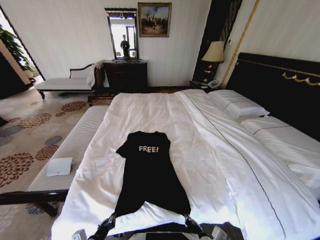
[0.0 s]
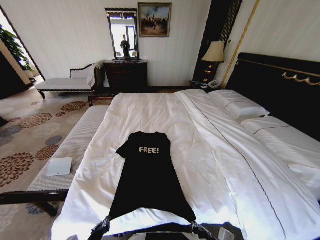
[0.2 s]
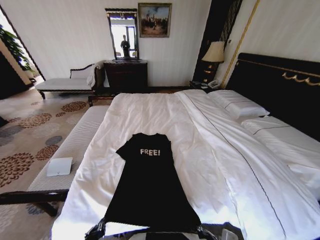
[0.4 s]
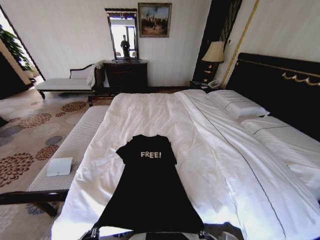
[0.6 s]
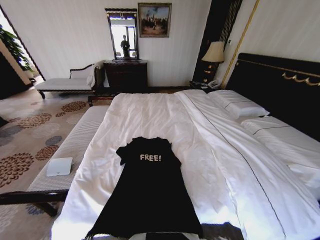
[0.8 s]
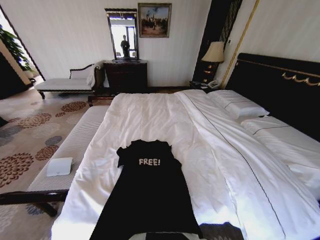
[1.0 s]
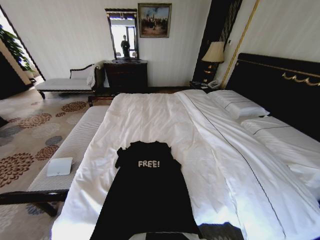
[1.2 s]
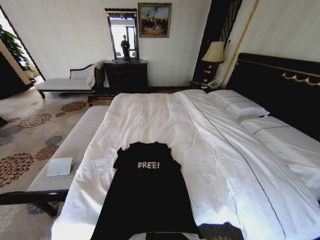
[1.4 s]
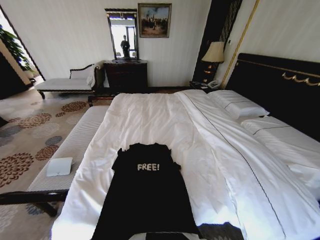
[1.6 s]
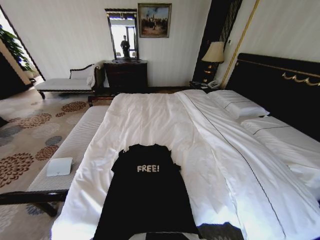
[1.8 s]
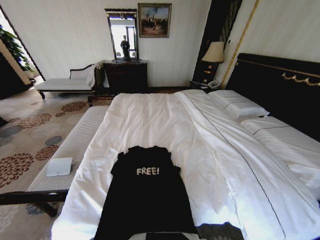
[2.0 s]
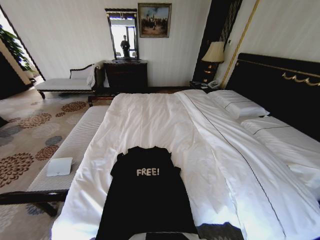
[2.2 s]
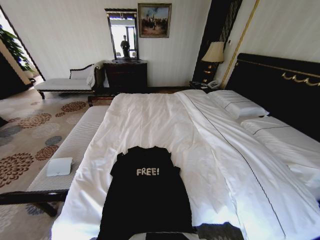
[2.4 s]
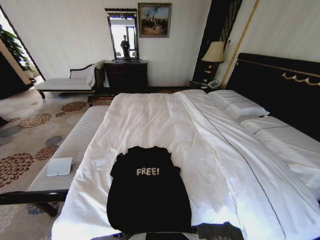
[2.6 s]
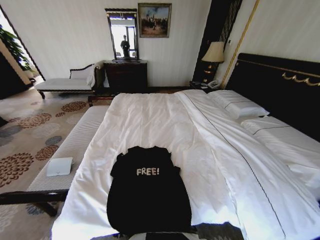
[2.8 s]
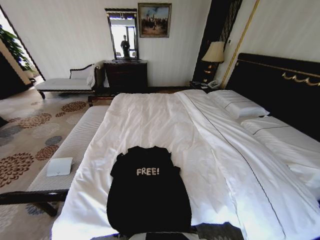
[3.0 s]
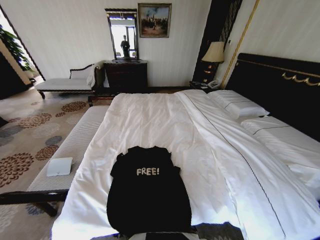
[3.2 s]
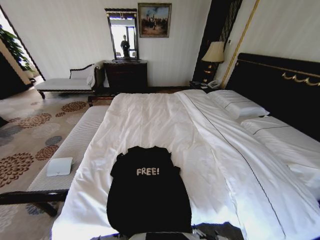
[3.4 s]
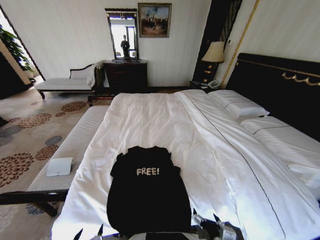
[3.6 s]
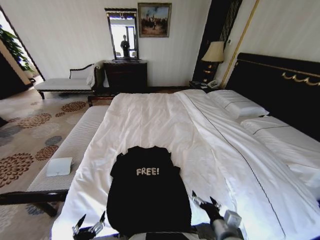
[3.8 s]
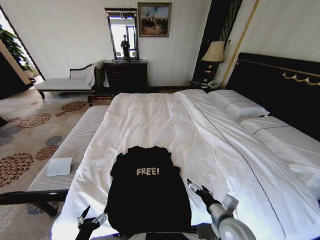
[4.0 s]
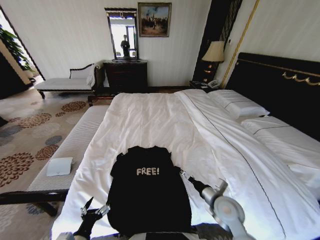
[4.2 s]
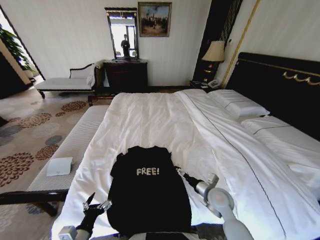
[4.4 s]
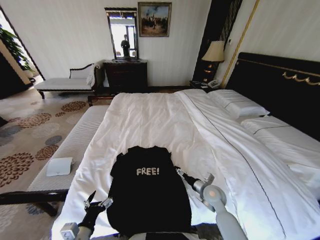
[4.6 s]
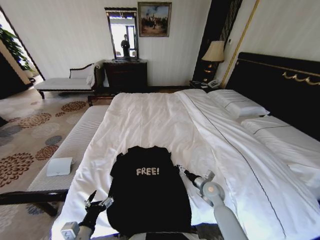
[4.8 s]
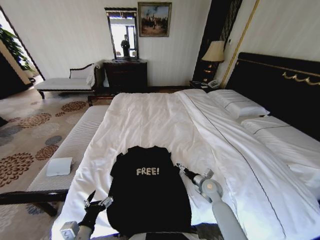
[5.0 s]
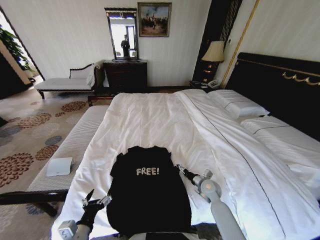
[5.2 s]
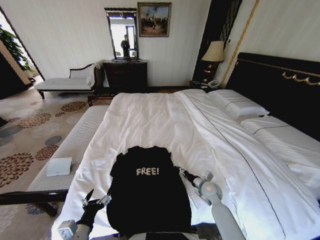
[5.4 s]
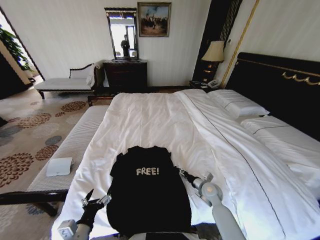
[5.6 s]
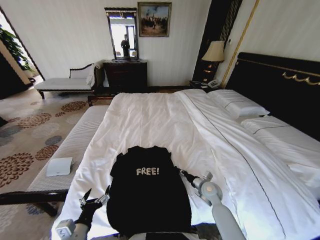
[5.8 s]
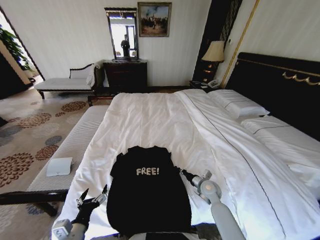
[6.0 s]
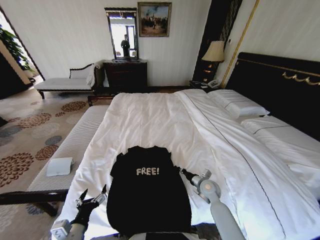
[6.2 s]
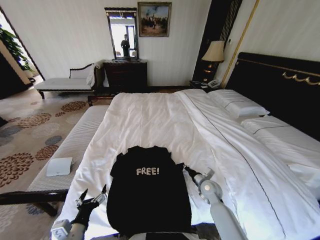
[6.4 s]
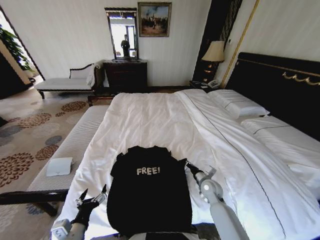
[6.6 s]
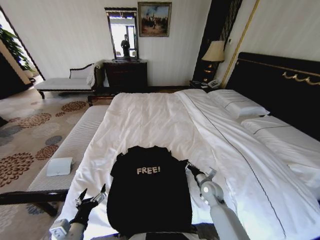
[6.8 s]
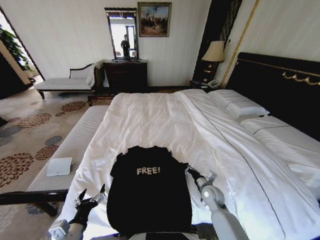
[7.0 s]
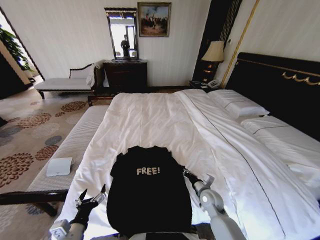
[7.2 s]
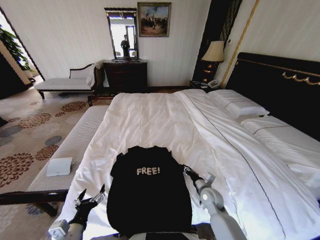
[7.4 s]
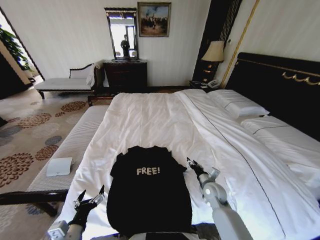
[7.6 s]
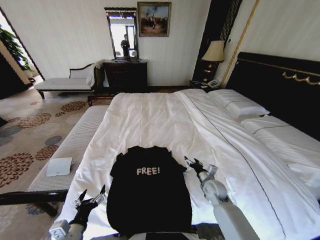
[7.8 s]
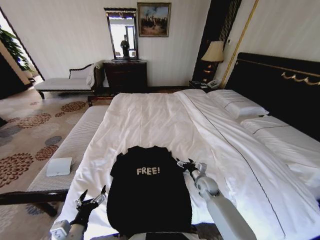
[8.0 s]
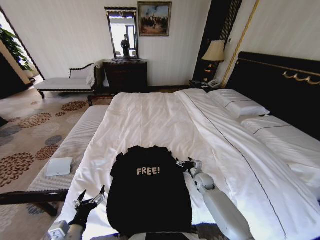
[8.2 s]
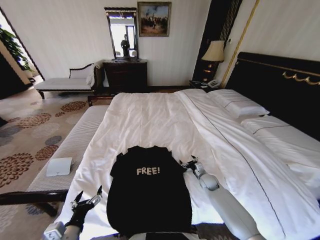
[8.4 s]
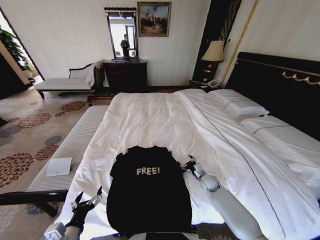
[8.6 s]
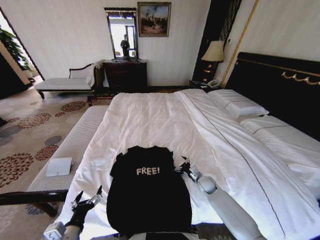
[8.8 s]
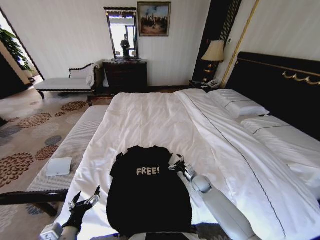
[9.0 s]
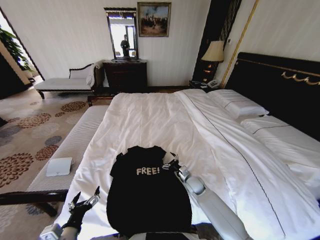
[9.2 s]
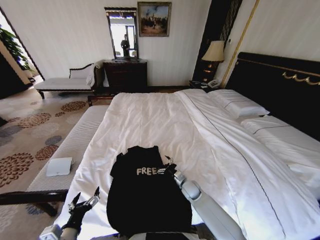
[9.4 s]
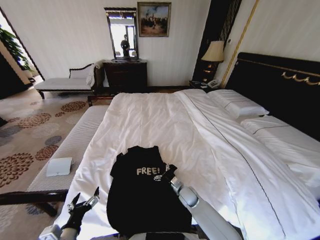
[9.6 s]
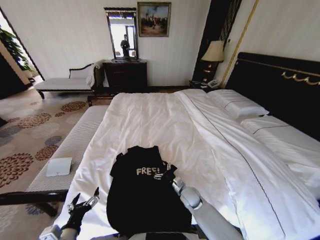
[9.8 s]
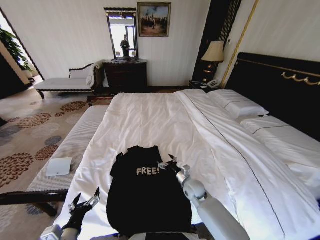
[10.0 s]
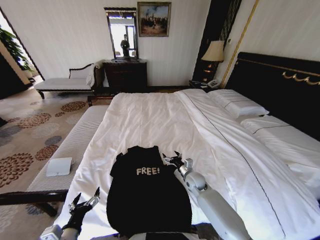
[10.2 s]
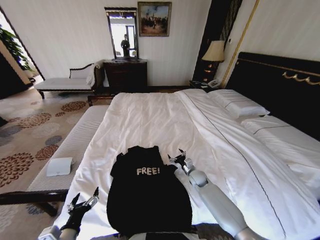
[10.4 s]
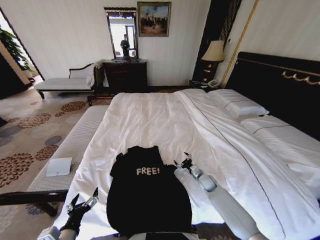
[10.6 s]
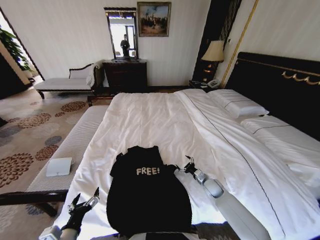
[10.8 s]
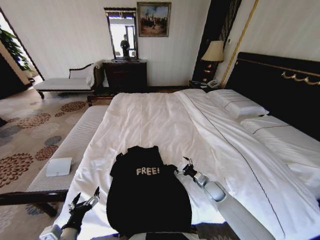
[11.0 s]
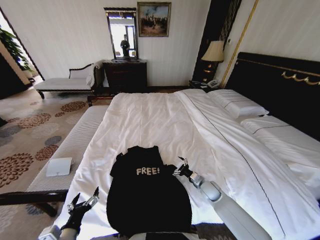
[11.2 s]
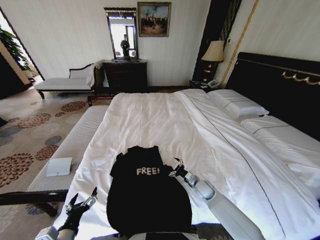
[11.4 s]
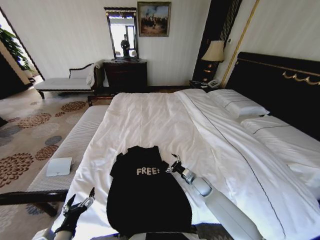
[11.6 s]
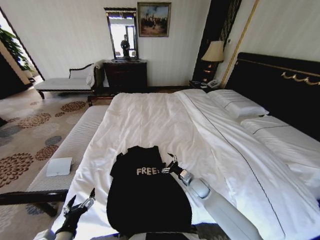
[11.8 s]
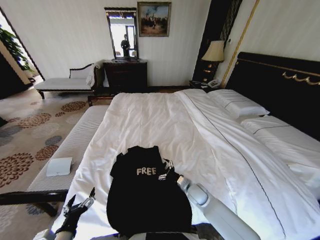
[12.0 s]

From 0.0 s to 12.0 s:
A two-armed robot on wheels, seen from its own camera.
Task of the whole recording: Fold the clothes on the bed.
From 0.0 s to 1.6 s: The left gripper heads backward, covering some 15 cm, while the right gripper changes place by some 5 cm.
From 1.6 s to 3.0 s: The right gripper opens up. Meanwhile the left gripper opens.
From 3.0 s to 4.4 s: The right gripper goes approximately 25 cm forward, and opens its fingers. The left gripper heads forward, covering roughly 15 cm, and opens.
From 4.4 s to 6.0 s: The right gripper moves downward and forward, approximately 10 cm, and closes.
From 6.0 s to 7.6 s: The right gripper opens.
From 7.6 s to 9.0 s: The right gripper is displaced downward and forward by some 10 cm, and opens up.
From 9.0 s to 10.4 s: The right gripper reaches about 5 cm backward, then returns.
From 10.4 s to 12.0 s: The right gripper goes about 10 cm backward, and moves about 5 cm to the right and comes back.

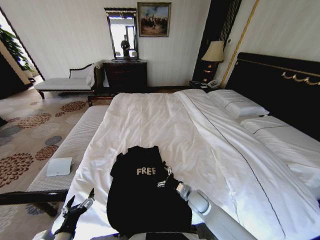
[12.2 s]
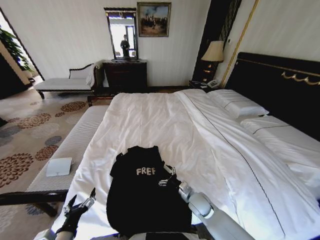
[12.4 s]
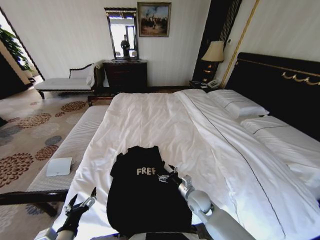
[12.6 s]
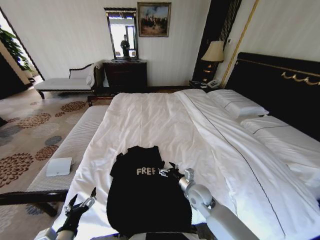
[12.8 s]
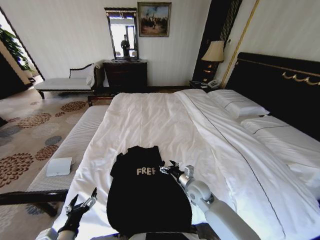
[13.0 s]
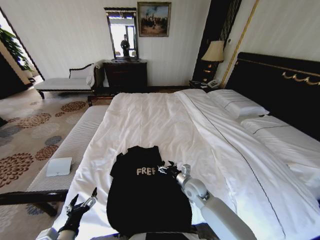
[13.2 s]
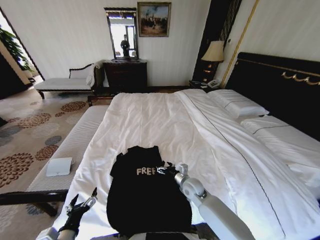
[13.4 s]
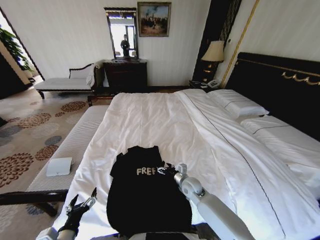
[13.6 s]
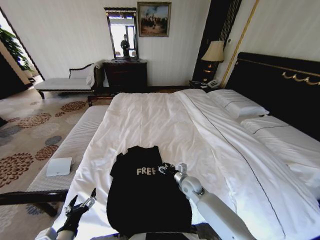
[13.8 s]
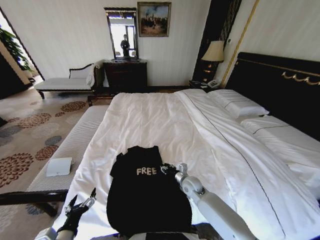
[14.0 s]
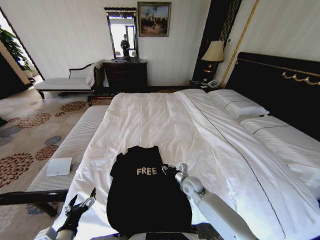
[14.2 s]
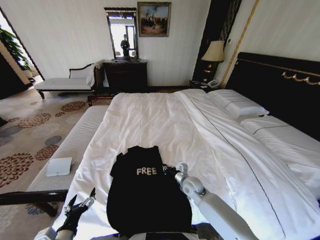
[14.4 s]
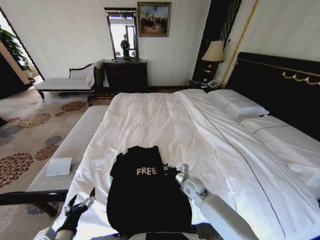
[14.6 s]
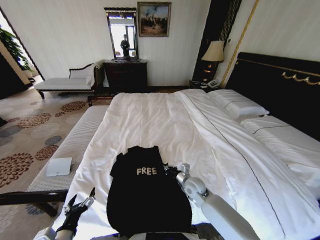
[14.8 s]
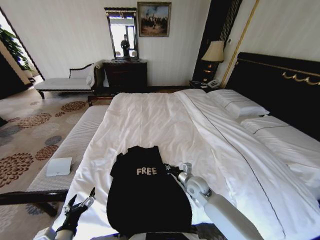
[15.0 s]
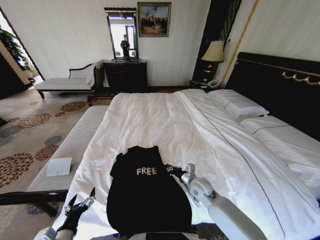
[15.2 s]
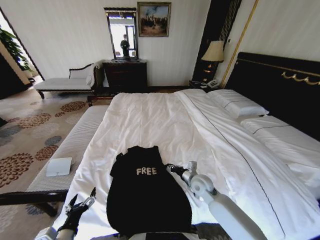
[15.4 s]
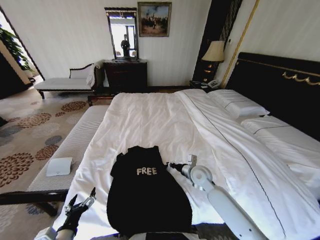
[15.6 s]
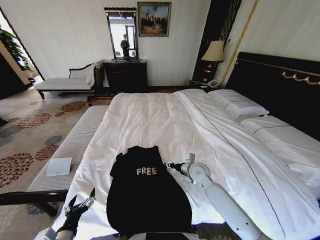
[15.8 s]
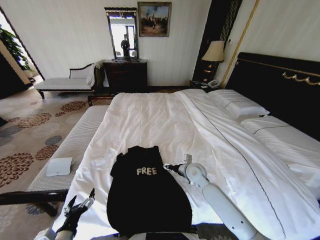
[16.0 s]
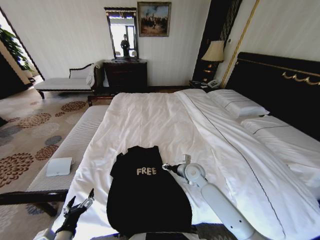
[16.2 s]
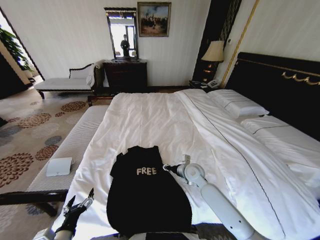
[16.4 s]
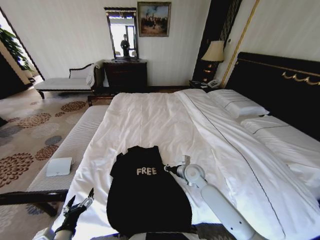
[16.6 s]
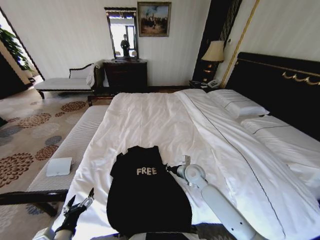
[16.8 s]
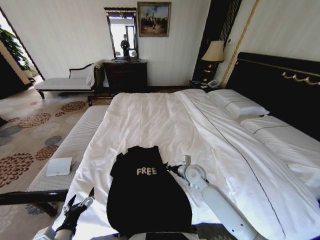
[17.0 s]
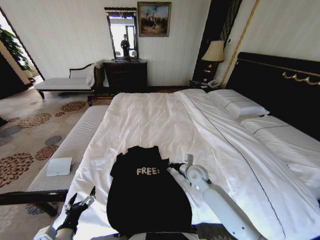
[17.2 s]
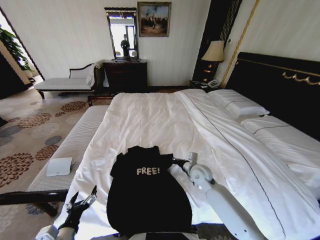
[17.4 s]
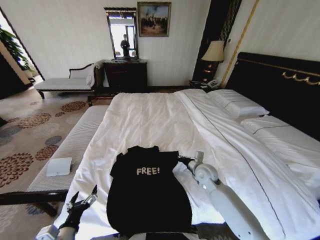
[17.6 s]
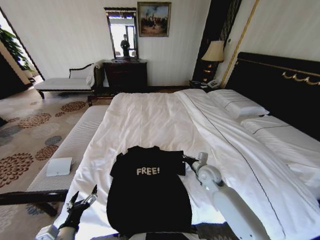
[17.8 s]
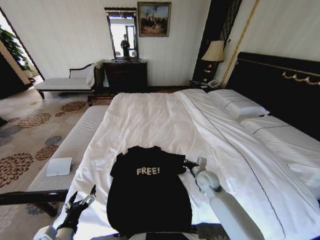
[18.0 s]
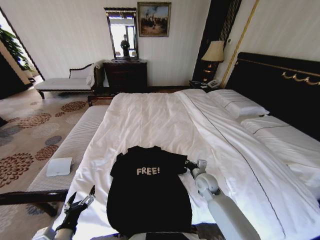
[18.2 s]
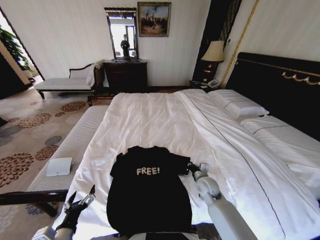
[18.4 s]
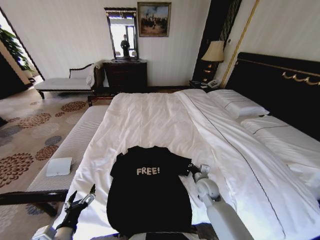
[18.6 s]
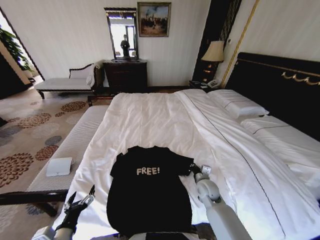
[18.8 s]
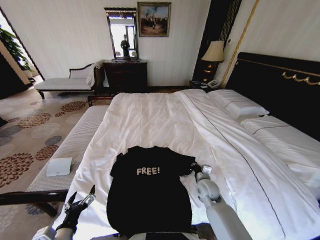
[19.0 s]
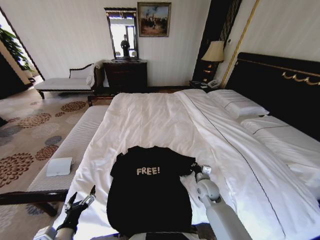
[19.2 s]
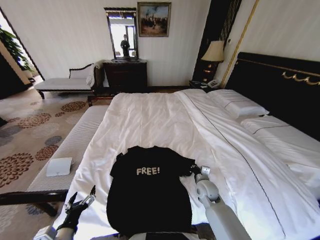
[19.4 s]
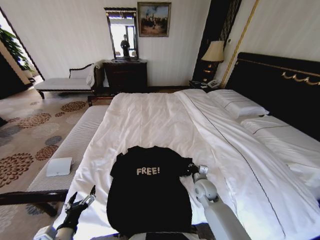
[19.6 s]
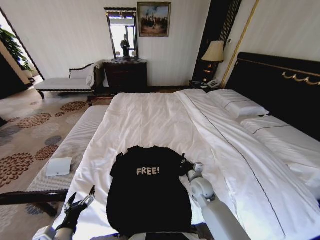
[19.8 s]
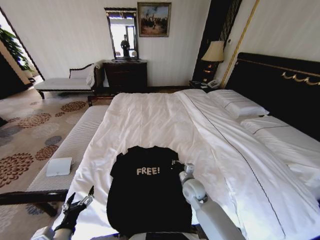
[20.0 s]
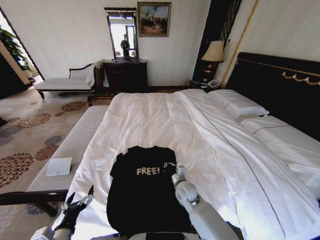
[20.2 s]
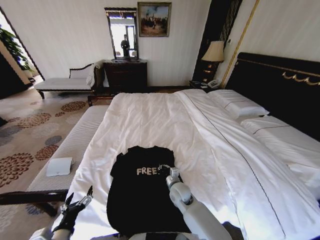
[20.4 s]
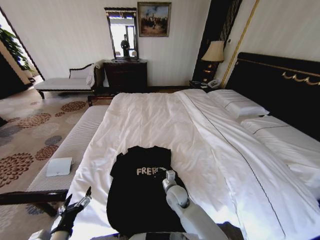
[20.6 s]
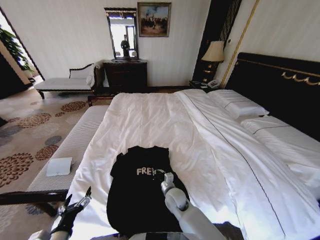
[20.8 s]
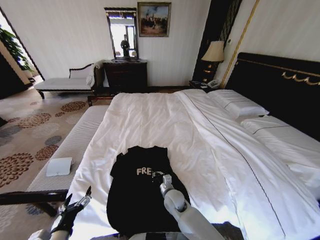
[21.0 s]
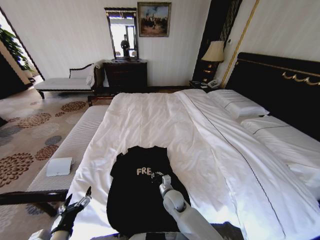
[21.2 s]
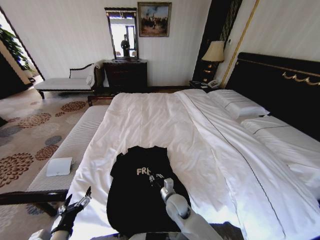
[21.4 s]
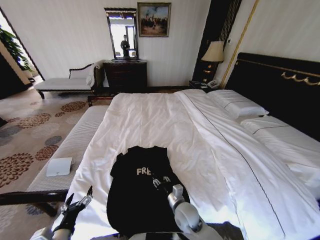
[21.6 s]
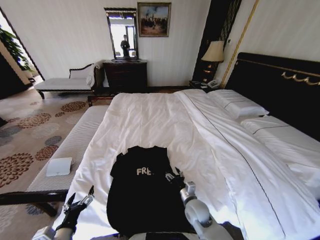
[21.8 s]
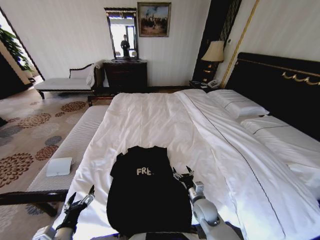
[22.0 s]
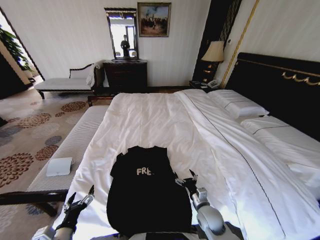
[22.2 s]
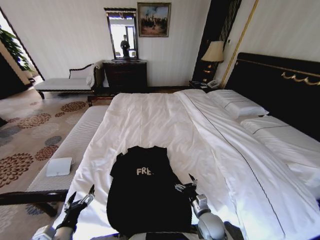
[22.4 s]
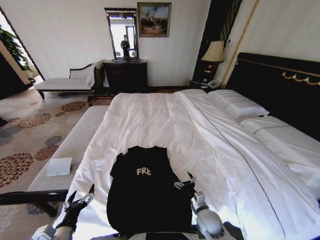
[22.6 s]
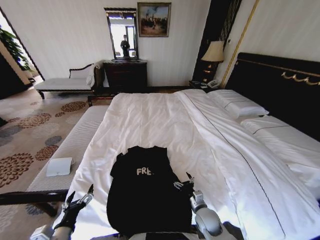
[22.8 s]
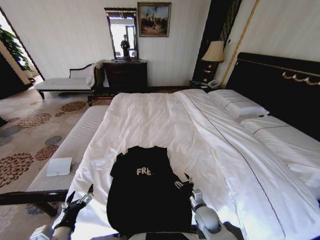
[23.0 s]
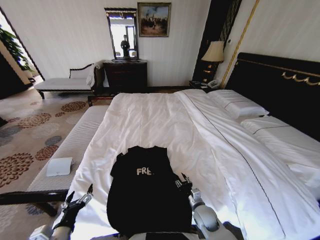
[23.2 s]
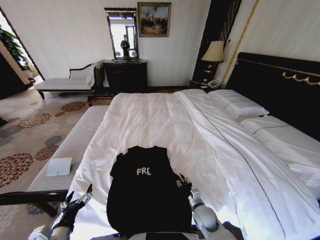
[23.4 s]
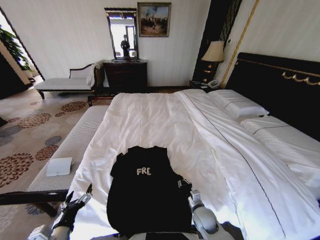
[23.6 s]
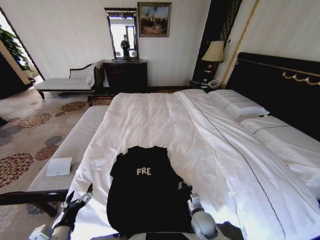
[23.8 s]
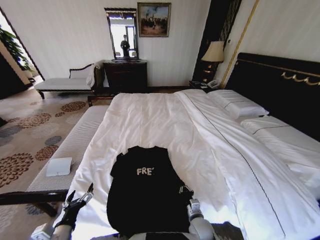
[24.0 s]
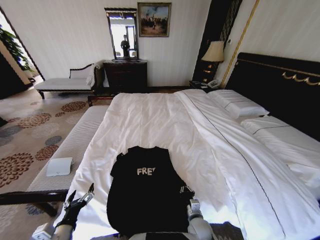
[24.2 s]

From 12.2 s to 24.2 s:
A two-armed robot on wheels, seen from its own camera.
Task of the whole recording: Fold the clothes on the bed.
From 12.2 s to 13.8 s: The right gripper goes about 5 cm forward.
From 13.8 s to 15.2 s: The right gripper changes place by roughly 5 cm, and closes.
From 15.2 s to 16.6 s: The right gripper travels forward by some 5 cm, and opens and closes again.
From 16.6 s to 18.2 s: The right gripper goes approximately 5 cm to the right.
From 18.2 s to 19.8 s: The grippers stay close to where they were, moving slightly.
From 19.8 s to 21.2 s: The right gripper shifts about 15 cm to the left and downward.
From 21.2 s to 22.6 s: The right gripper heads to the right and backward, covering roughly 15 cm, and opens its fingers.
From 22.6 s to 24.2 s: The right gripper ends up approximately 5 cm from where it was, and closes its fingers.
